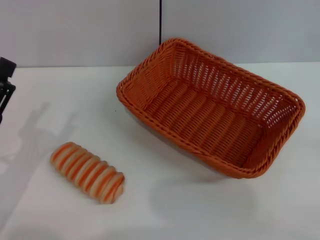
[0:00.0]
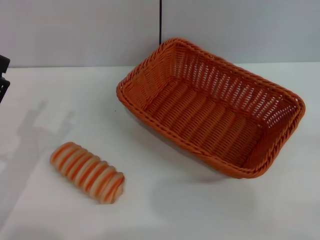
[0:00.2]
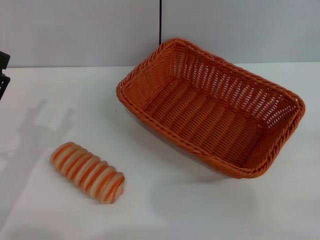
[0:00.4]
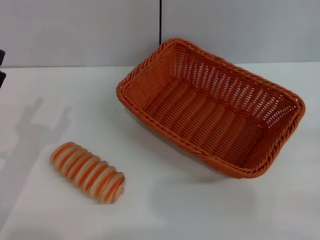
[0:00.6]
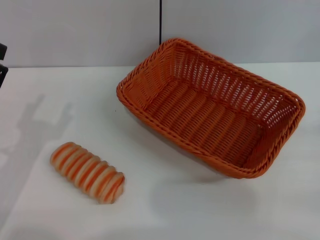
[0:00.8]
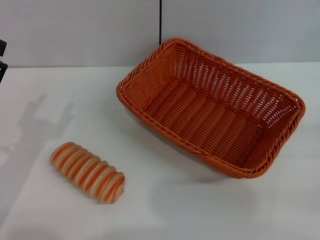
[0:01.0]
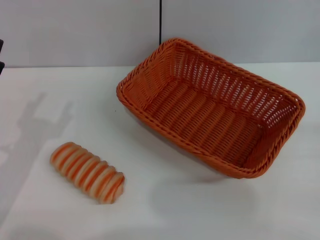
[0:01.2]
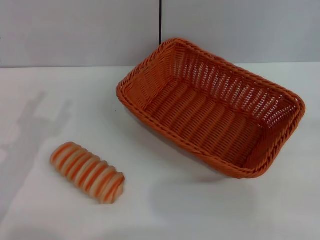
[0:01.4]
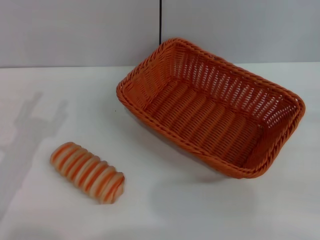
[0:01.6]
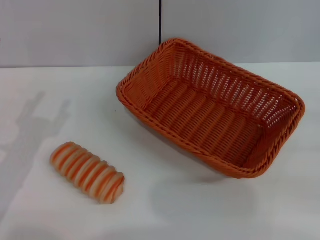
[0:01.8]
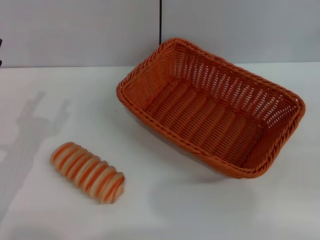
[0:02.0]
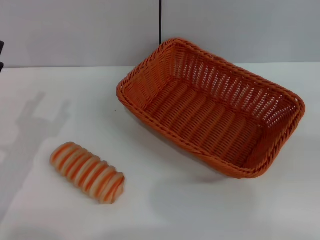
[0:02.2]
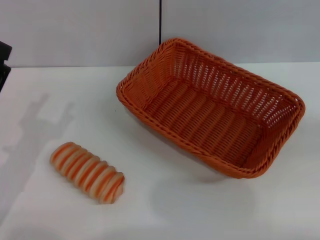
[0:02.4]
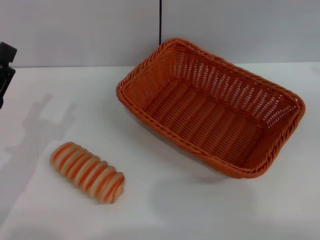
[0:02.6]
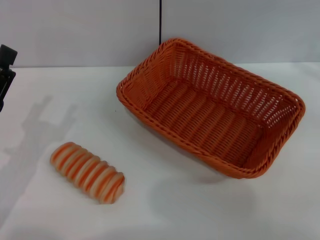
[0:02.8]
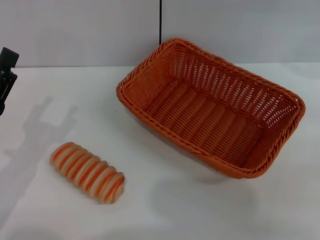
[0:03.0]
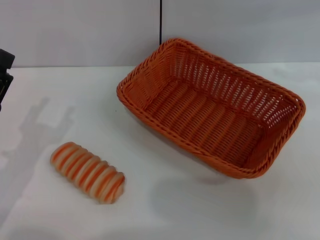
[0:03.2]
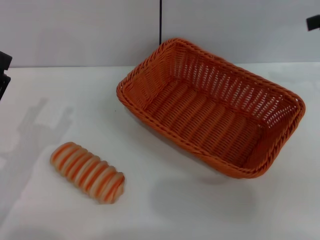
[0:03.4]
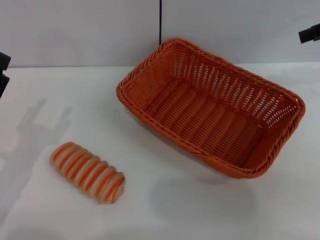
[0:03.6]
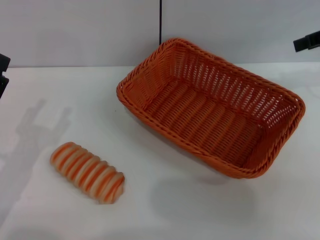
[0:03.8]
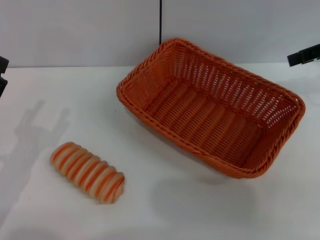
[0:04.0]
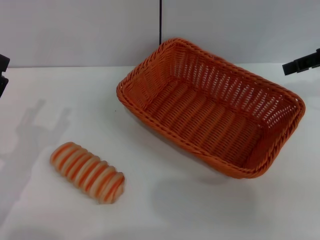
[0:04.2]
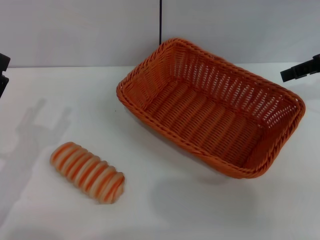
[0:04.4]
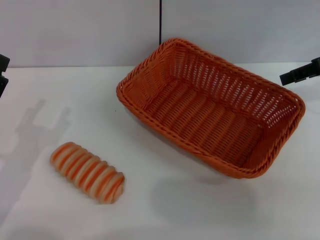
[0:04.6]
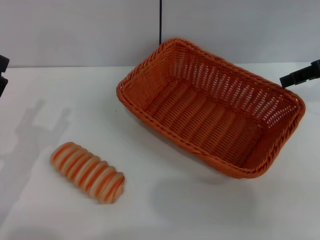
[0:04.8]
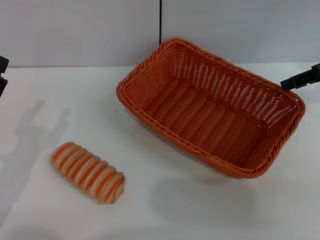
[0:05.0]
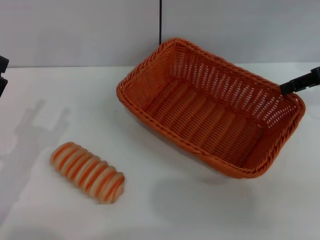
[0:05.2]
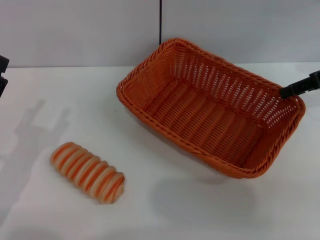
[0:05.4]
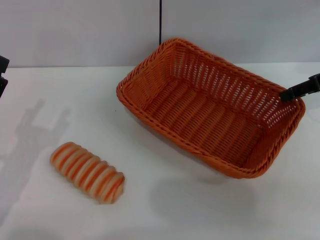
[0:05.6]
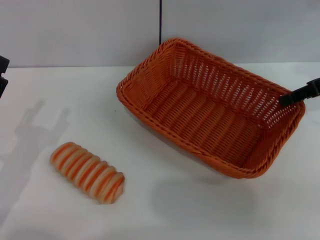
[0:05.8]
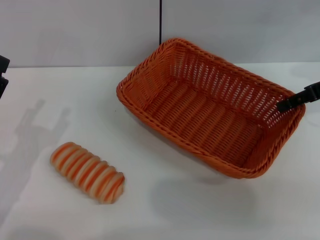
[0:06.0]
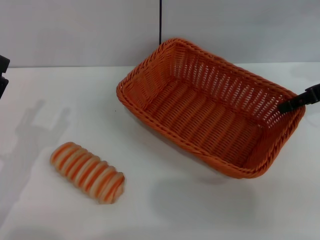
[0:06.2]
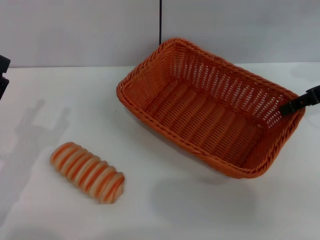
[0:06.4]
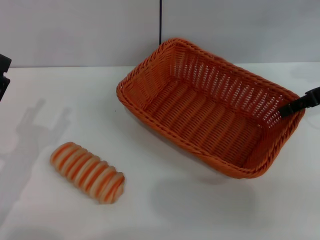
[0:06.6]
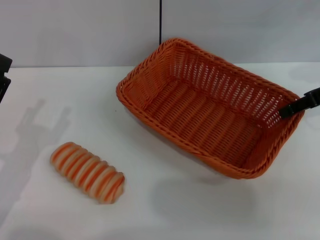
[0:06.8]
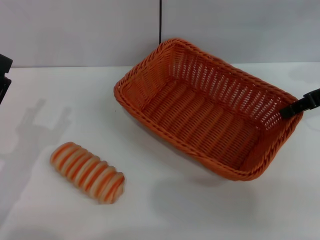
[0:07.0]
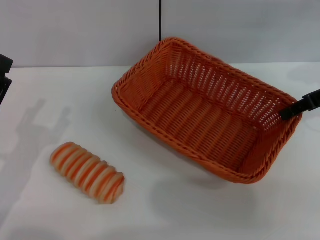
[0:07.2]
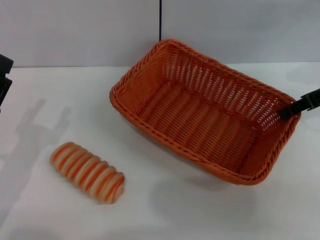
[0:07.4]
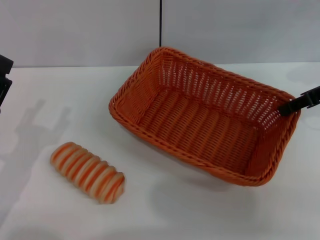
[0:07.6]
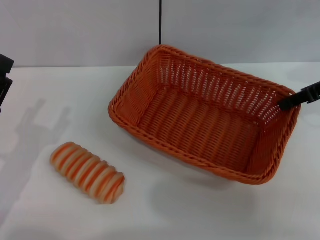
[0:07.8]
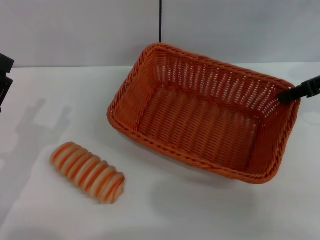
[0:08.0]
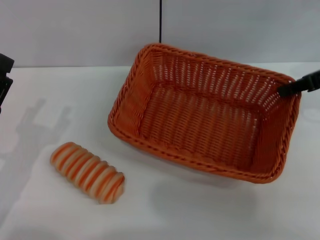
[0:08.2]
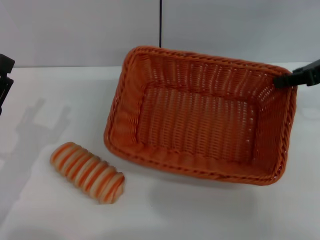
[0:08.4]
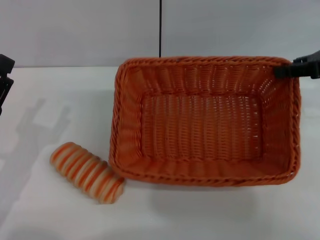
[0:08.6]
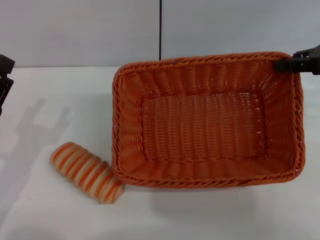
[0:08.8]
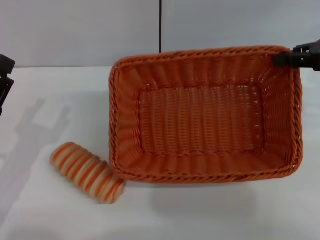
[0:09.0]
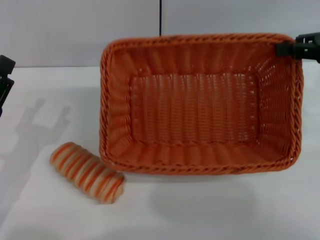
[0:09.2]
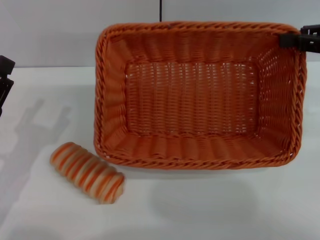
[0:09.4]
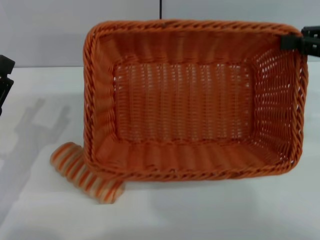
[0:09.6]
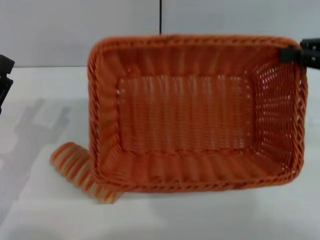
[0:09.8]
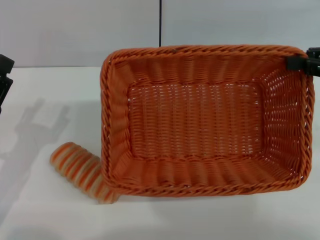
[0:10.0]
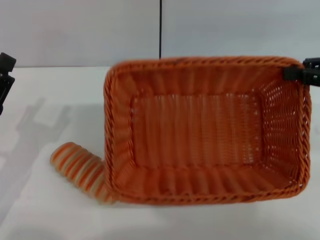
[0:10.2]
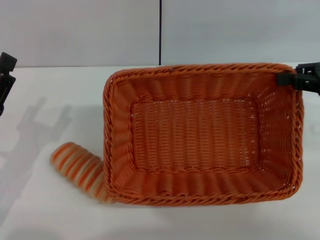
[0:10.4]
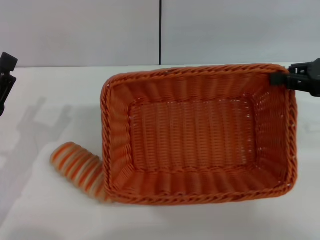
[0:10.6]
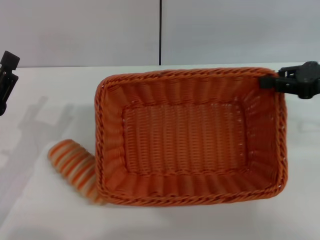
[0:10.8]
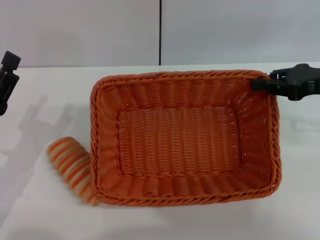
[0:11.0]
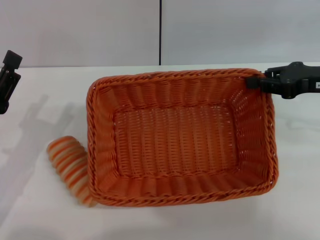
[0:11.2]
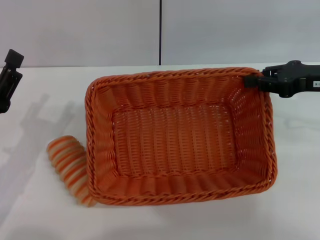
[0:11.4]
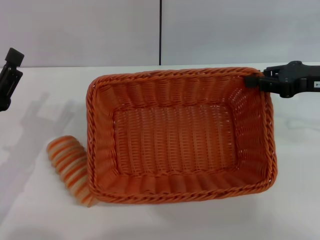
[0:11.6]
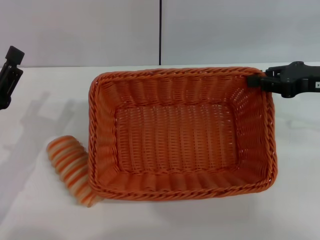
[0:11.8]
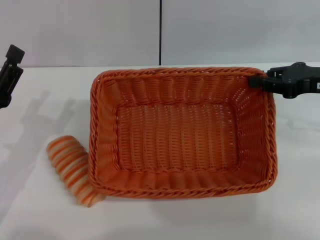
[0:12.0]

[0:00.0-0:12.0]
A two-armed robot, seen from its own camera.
Step, 0:00.0 to 0:08.8: Pick up the dark basket with the right gripper.
0:01.6 to 0:03.0: The right gripper goes about 25 cm upward and forward.
0:03.0 to 0:04.4: The right gripper moves downward and to the left, some 10 cm.
0:04.4 to 0:06.0: There are only small adjustments of the grippers.
0:06.0 to 0:07.6: The right gripper closes up.
0:09.0 to 0:10.4: The right gripper ends up some 5 cm from where it was.
0:10.4 to 0:12.0: The grippers stay close to where they were, moving slightly.

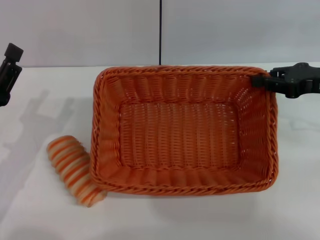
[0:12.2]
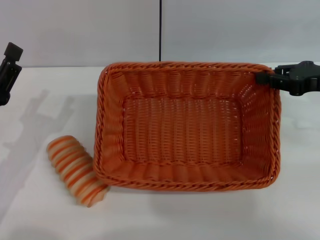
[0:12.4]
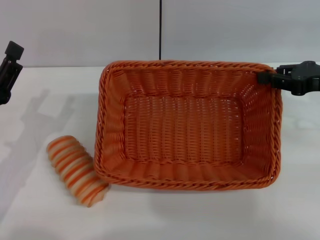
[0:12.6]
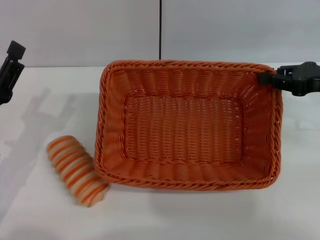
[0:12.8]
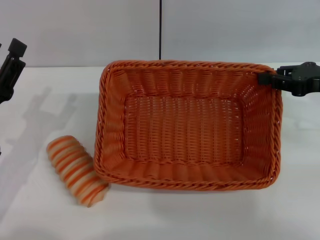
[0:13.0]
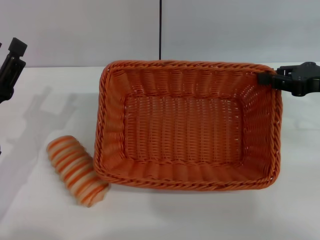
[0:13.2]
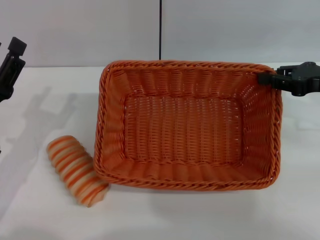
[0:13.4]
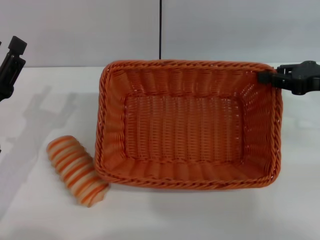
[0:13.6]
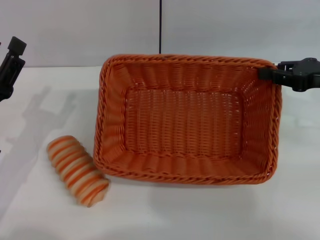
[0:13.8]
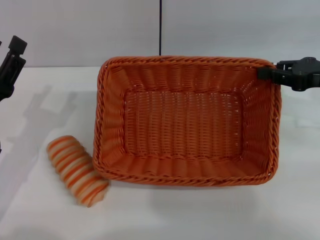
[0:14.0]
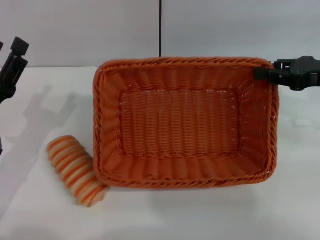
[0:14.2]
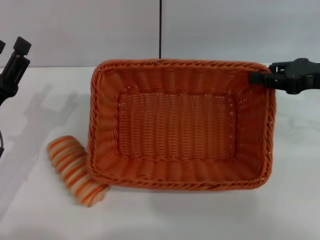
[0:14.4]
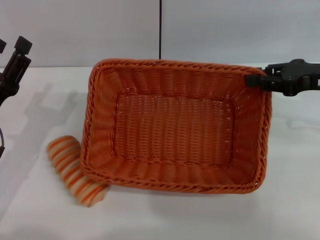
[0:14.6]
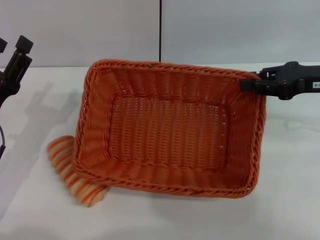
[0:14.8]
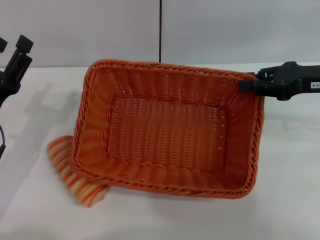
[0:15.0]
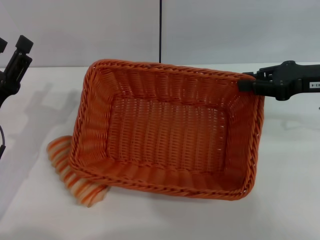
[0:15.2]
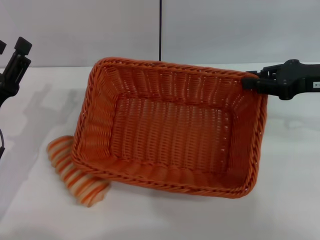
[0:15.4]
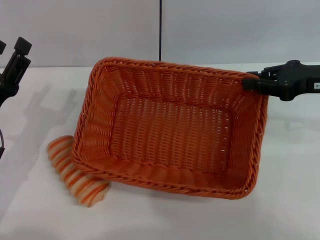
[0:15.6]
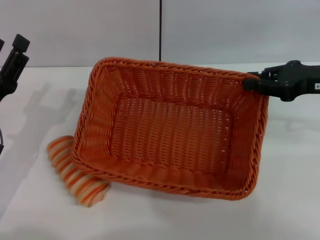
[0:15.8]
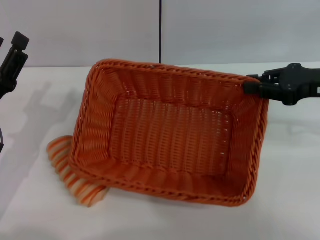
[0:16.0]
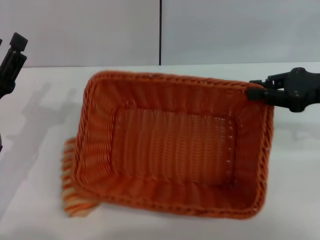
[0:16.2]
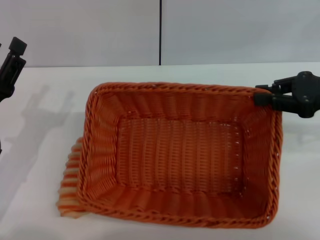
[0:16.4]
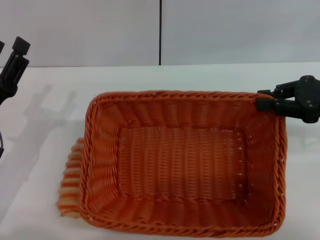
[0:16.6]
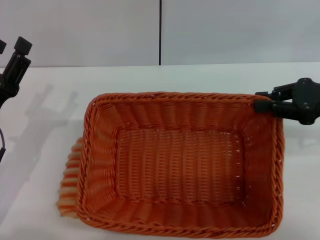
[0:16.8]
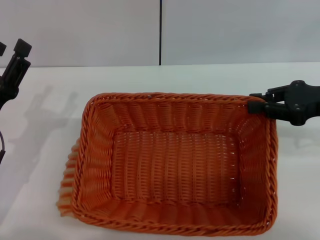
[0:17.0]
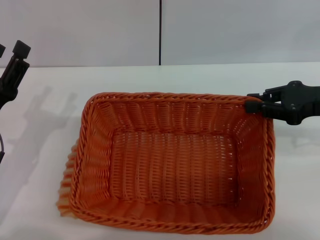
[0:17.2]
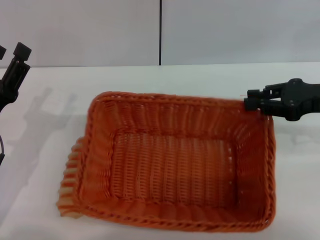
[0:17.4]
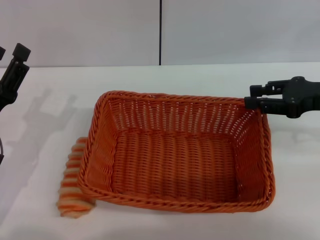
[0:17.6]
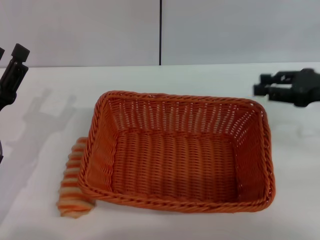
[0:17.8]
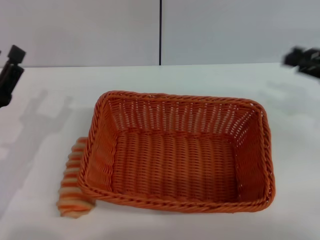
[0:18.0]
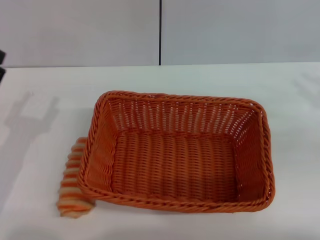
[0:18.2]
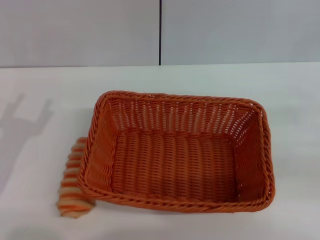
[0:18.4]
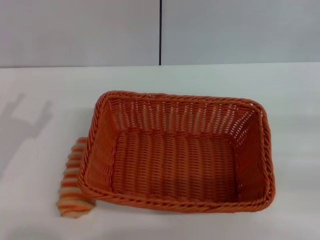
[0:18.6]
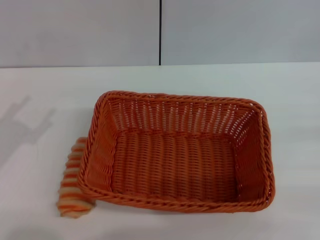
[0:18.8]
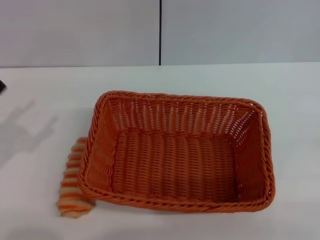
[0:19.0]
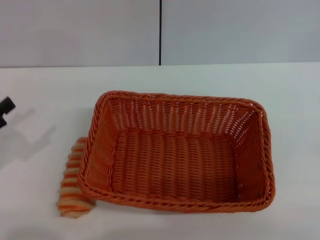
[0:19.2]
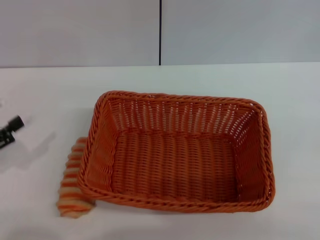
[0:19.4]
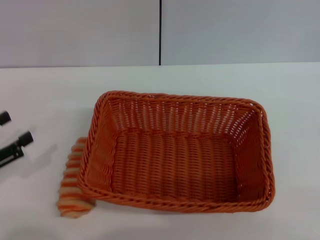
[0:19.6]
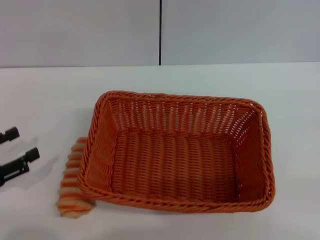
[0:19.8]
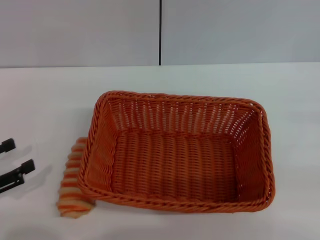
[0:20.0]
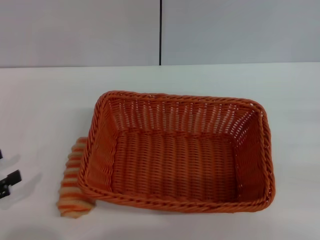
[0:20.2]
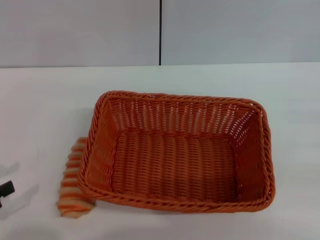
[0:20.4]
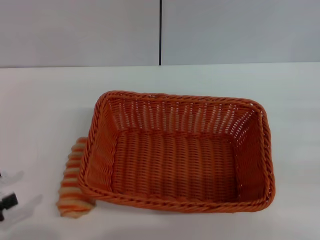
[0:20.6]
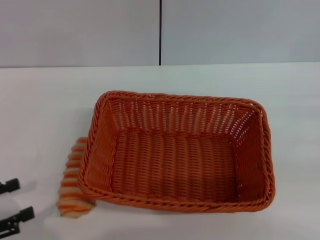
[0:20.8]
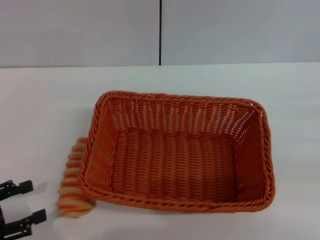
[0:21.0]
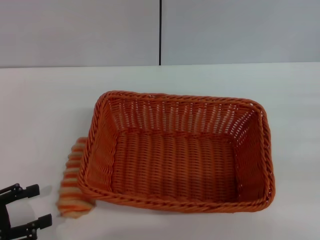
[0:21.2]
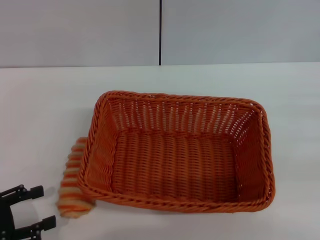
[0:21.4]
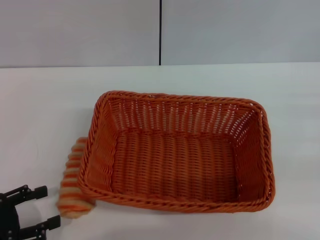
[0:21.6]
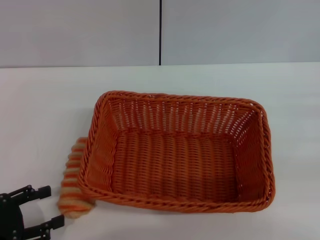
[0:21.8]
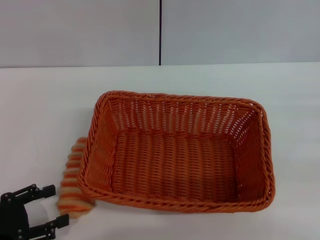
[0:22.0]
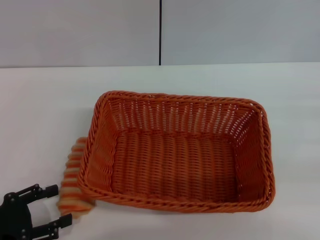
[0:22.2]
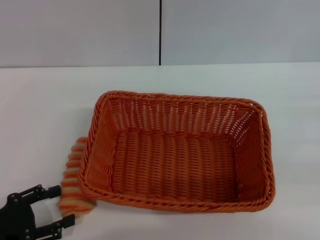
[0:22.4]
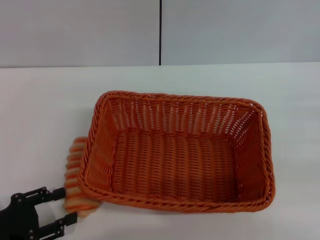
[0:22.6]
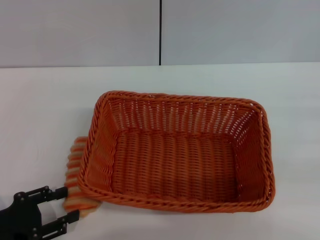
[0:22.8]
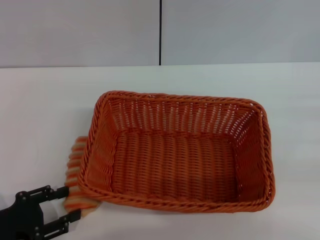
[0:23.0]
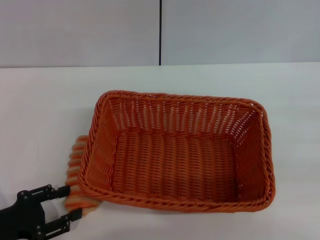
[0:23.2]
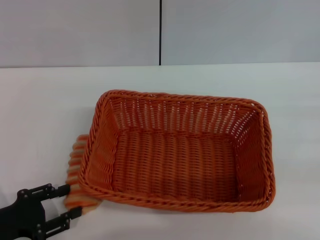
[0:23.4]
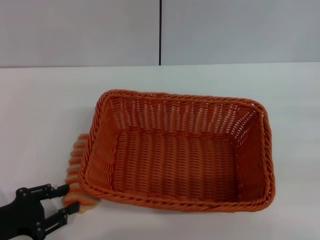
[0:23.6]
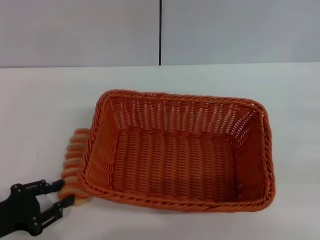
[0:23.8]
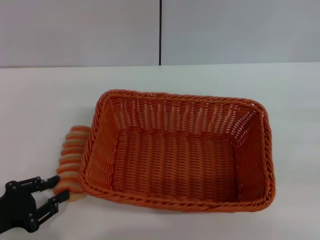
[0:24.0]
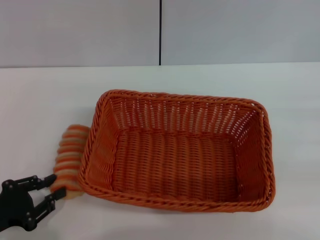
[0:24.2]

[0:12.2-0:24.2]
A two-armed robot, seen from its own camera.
Step, 0:12.2 to 0:17.6: Place the dark basket in the center of view with the right gripper.
0:12.2 to 0:13.8: Both grippers stay about where they are.
0:13.8 to 0:15.2: There are only small adjustments of the grippers.
0:16.6 to 0:18.2: The right gripper moves to the right, about 5 cm, and opens.
0:18.2 to 0:19.8: The left gripper moves to the left, some 5 cm.
0:21.2 to 0:22.6: There are only small adjustments of the grippers.
0:22.6 to 0:24.2: The left gripper closes.
